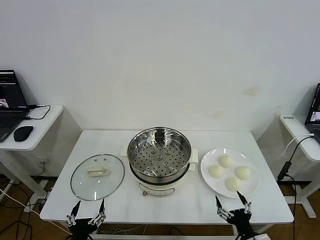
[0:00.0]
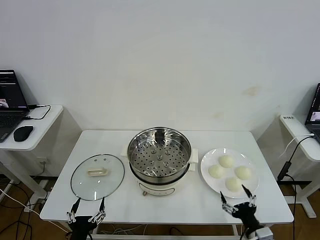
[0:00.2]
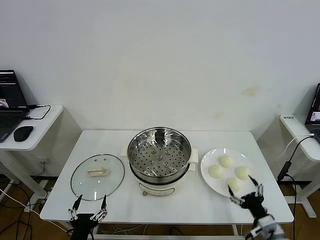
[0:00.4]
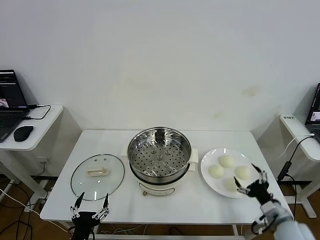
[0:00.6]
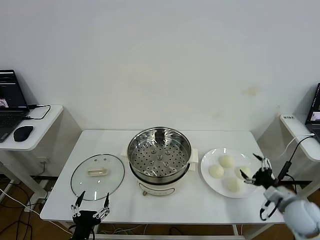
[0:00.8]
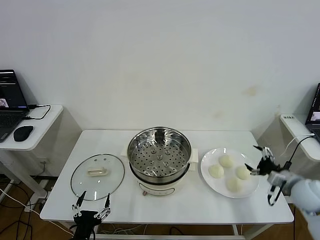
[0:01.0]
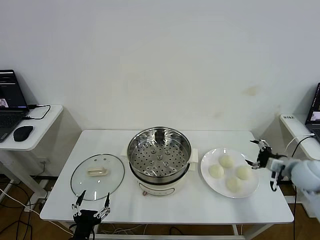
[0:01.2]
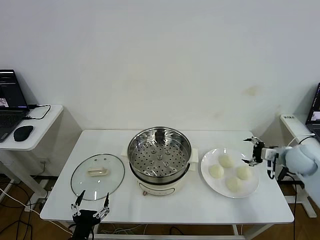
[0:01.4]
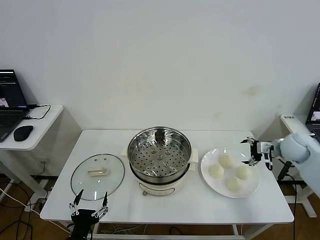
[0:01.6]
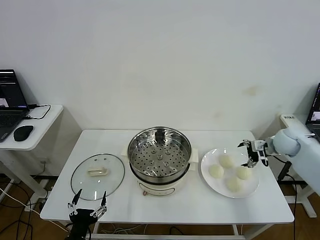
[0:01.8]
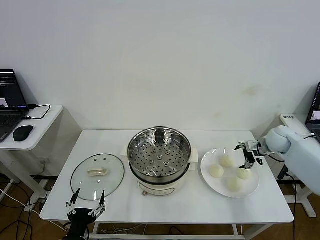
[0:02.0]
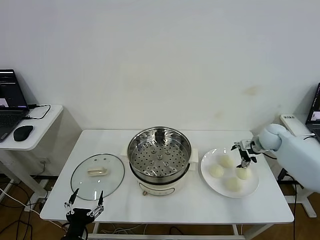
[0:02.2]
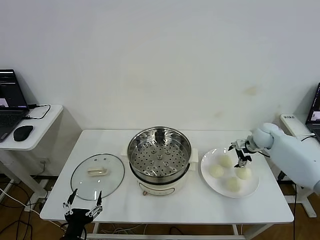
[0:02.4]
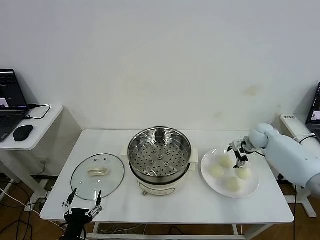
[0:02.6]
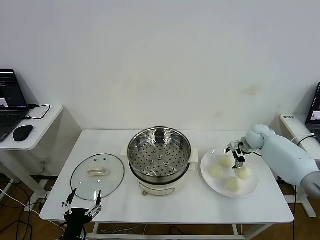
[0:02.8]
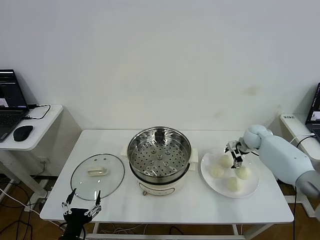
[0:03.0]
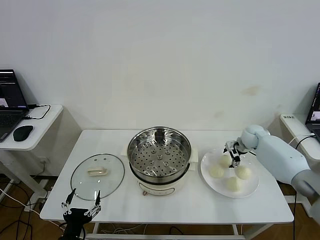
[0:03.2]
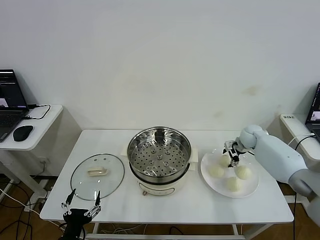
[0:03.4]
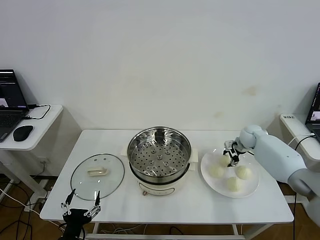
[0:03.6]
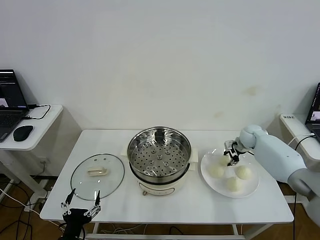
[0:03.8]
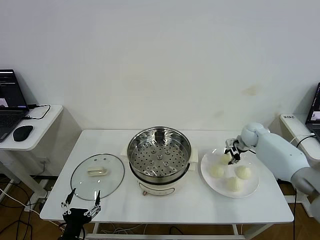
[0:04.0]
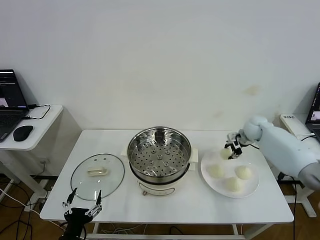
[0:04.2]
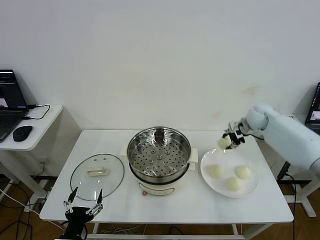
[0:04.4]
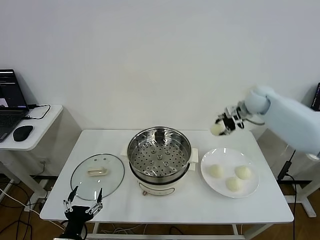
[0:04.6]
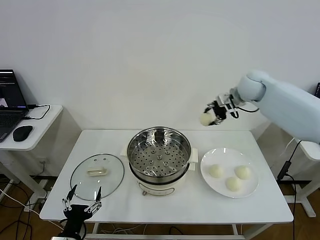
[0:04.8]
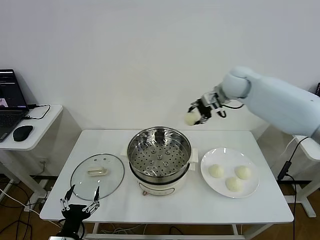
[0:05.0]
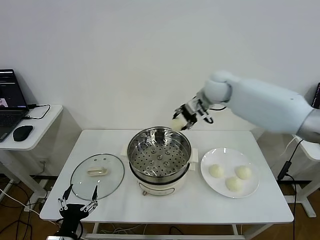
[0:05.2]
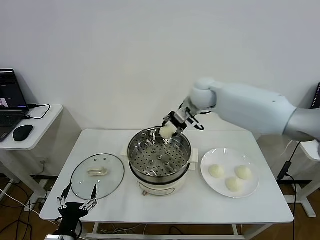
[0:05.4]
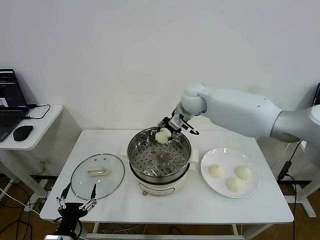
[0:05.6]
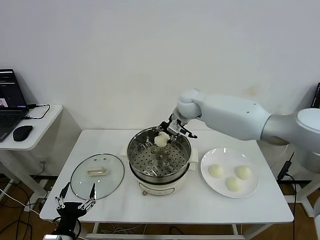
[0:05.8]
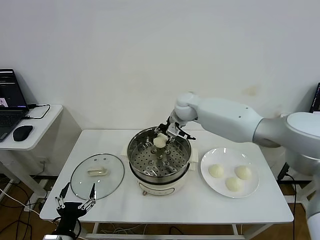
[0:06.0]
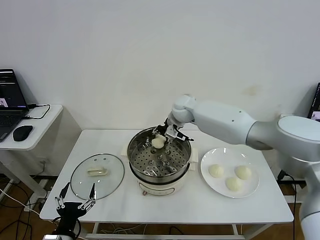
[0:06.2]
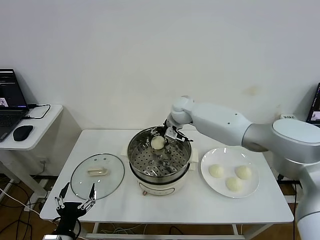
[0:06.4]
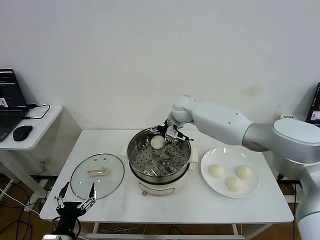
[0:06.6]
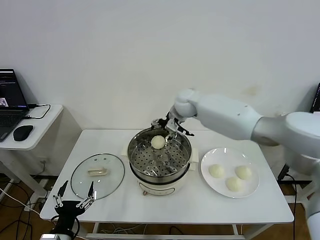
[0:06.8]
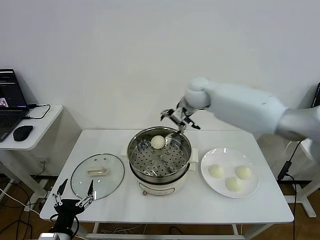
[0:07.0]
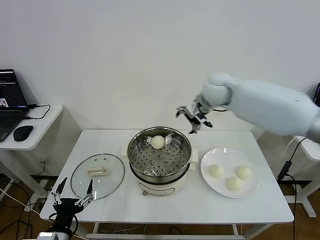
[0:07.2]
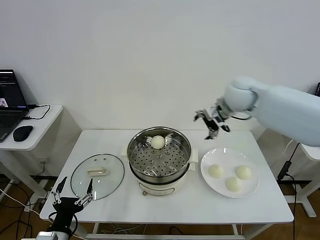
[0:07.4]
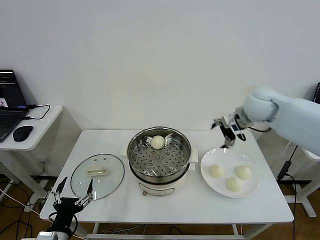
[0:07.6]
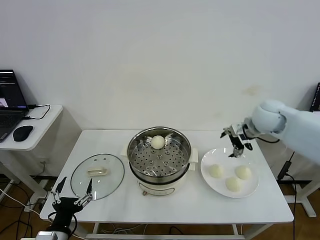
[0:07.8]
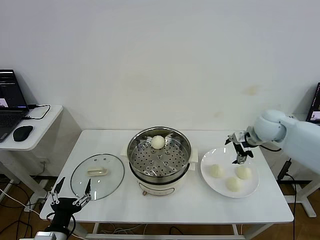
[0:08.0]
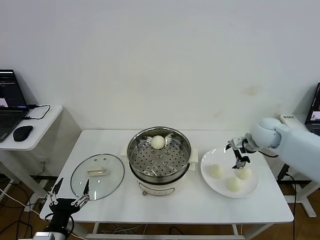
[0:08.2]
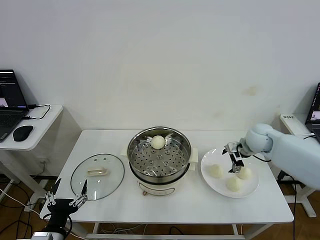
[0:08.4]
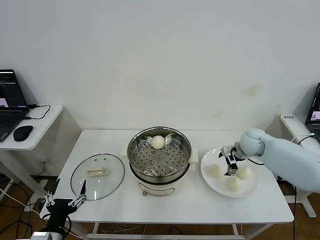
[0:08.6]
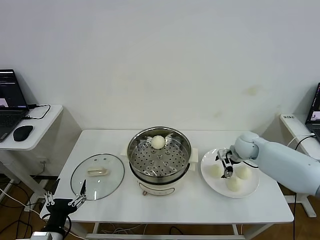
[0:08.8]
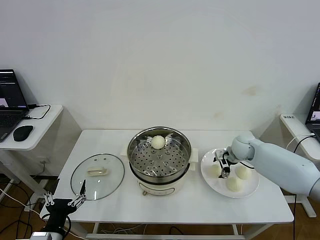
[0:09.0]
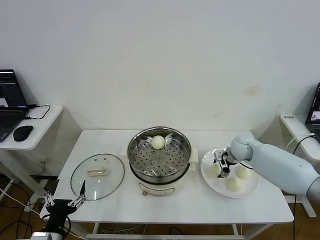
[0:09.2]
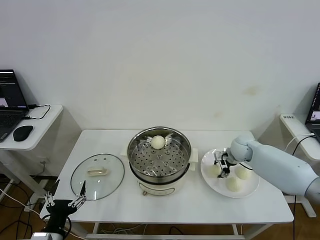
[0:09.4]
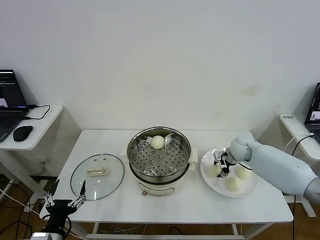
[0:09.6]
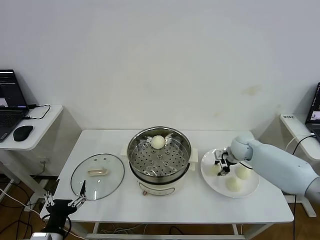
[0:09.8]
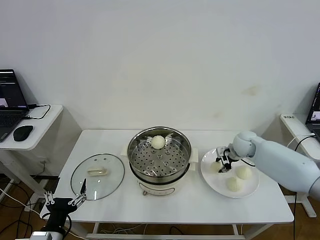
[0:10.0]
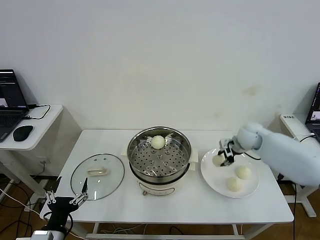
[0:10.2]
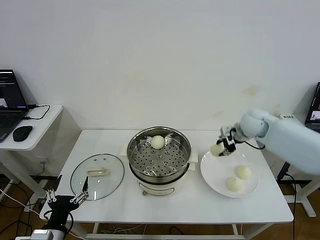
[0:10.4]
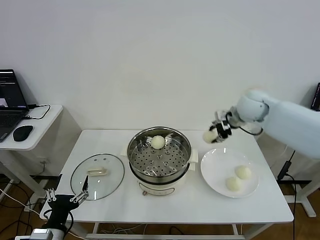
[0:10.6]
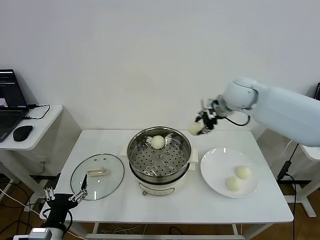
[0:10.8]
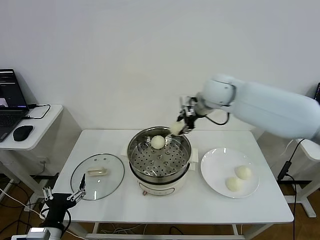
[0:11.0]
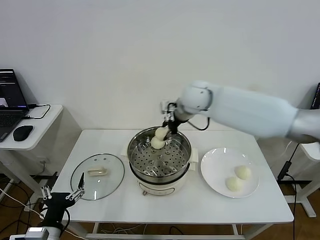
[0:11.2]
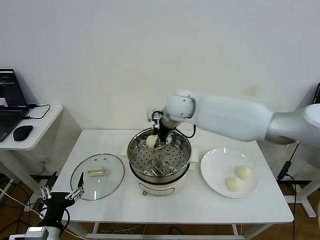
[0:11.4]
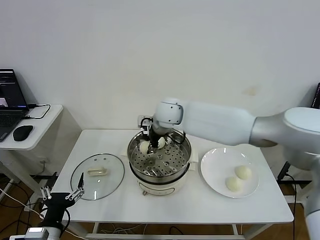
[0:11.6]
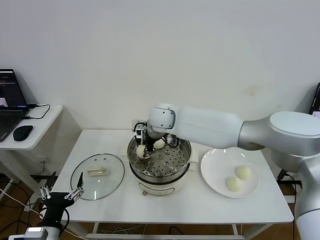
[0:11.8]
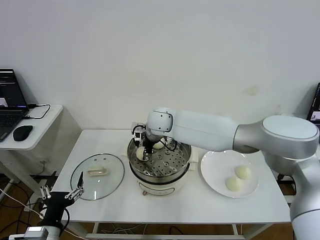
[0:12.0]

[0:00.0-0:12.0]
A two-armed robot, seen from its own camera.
Step, 0:00.0 to 0:03.6: Grasp the baozi in the plate with right gripper.
Step, 0:03.8 to 0:06.4: Place the baozi on the steamer with right gripper.
Step, 0:06.6 to 0:09.2: Grasp the baozi in the plate with right gripper.
0:01.6 to 0:03.0: The right gripper moves forward, downward and to the left, approximately 15 cm.
0:03.0 to 0:04.4: The right gripper travels upward by some 15 cm, and closes.
0:04.4 to 0:06.0: The right gripper goes about 25 cm to the left.
0:06.0 to 0:07.6: The right gripper travels to the right by roughly 25 cm, and opens.
0:07.6 to 0:09.0: The right gripper shifts about 20 cm downward.
0:09.0 to 0:10.4: The right gripper shifts about 15 cm upward, and closes its fingers.
0:10.4 to 0:12.0: The right gripper heads to the left, covering about 30 cm, and opens.

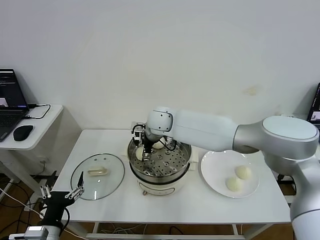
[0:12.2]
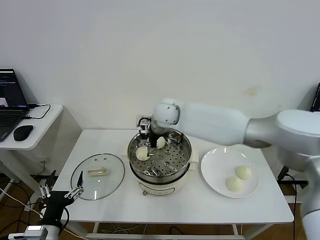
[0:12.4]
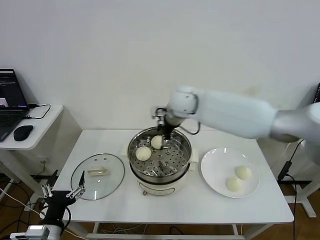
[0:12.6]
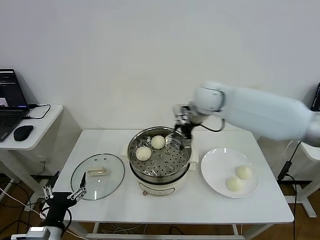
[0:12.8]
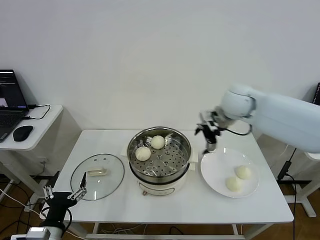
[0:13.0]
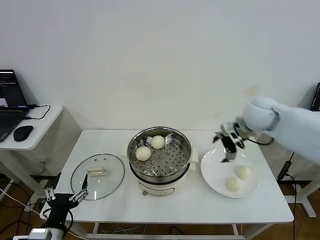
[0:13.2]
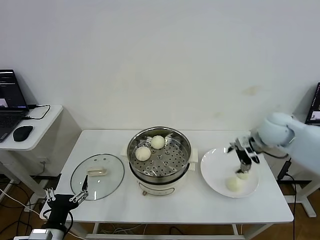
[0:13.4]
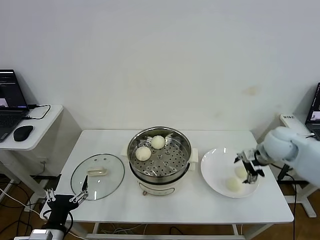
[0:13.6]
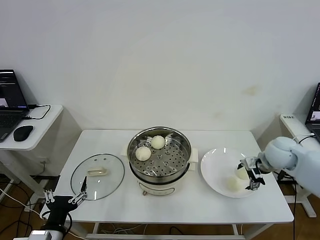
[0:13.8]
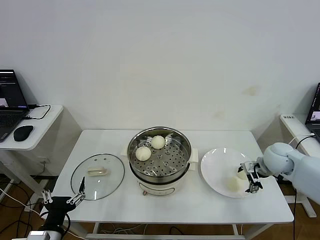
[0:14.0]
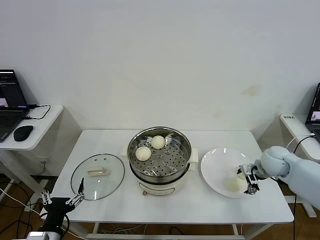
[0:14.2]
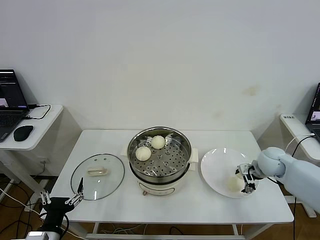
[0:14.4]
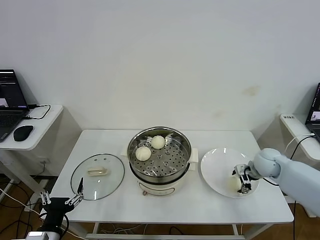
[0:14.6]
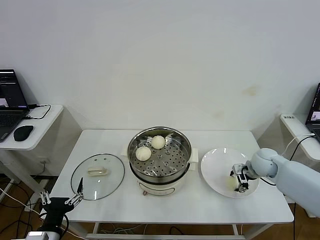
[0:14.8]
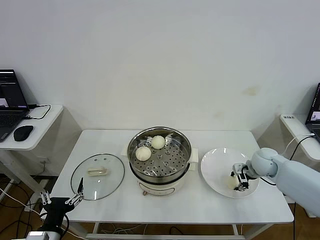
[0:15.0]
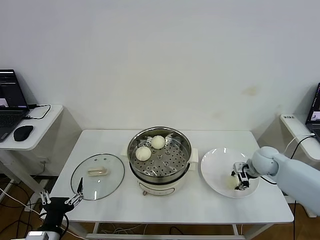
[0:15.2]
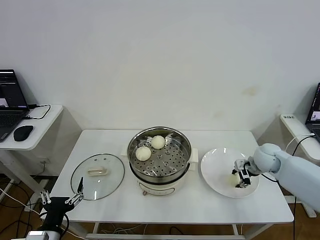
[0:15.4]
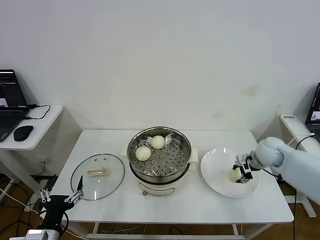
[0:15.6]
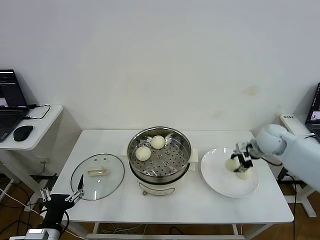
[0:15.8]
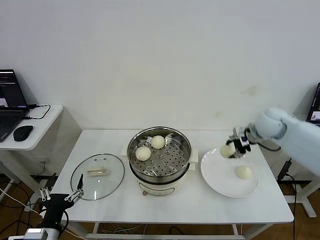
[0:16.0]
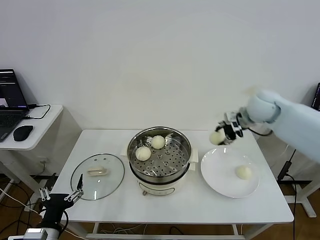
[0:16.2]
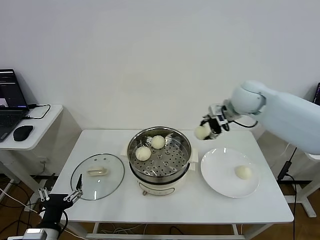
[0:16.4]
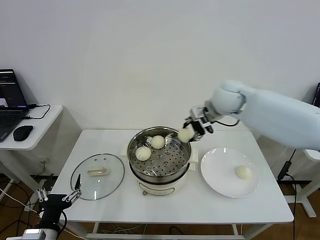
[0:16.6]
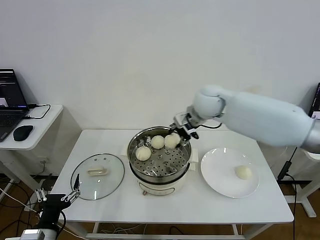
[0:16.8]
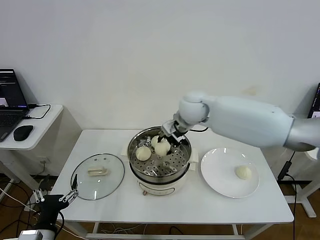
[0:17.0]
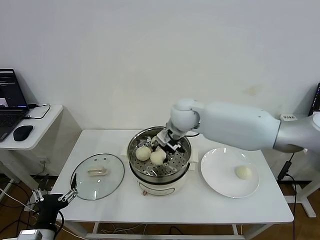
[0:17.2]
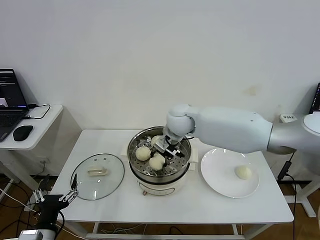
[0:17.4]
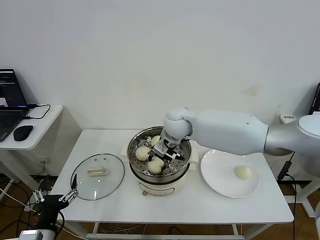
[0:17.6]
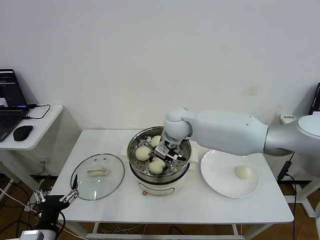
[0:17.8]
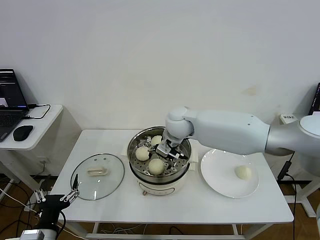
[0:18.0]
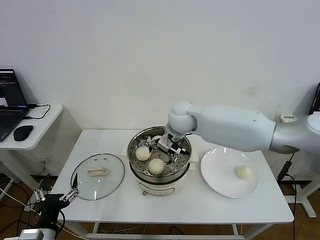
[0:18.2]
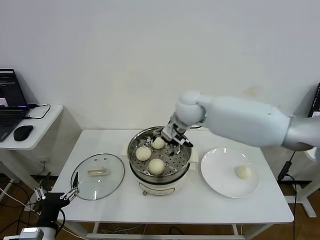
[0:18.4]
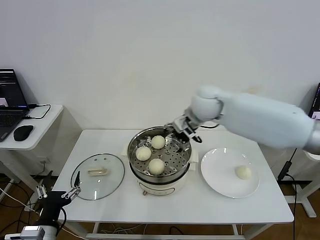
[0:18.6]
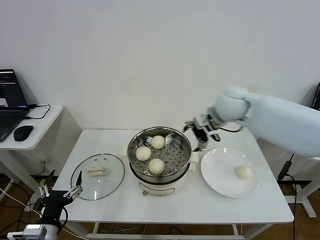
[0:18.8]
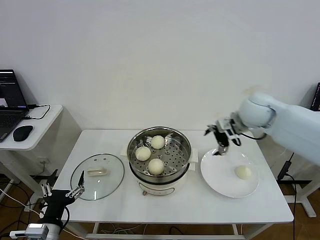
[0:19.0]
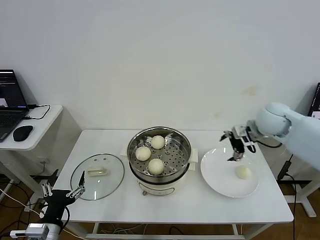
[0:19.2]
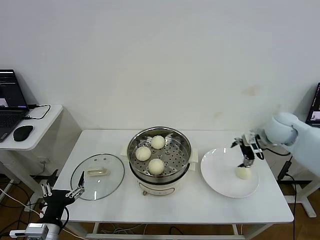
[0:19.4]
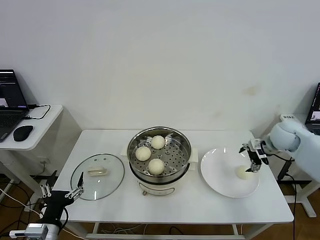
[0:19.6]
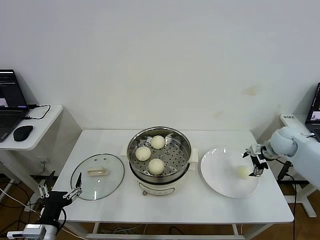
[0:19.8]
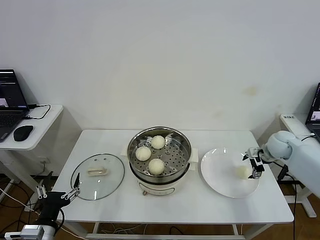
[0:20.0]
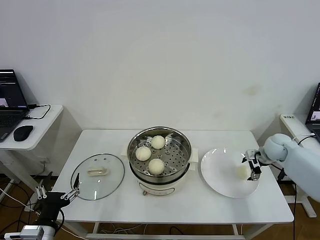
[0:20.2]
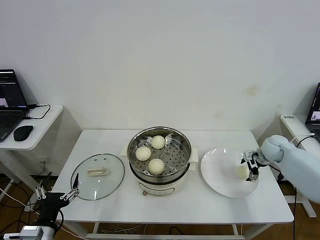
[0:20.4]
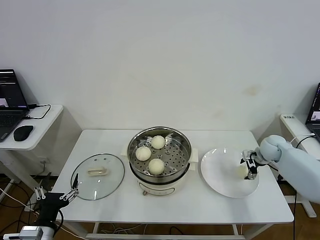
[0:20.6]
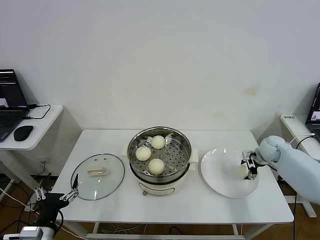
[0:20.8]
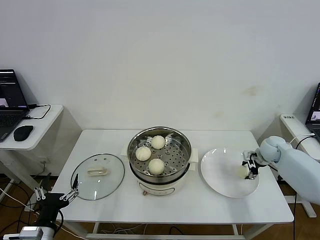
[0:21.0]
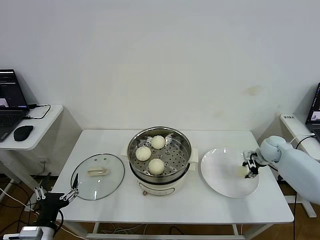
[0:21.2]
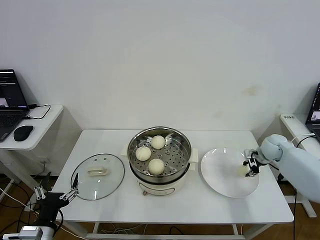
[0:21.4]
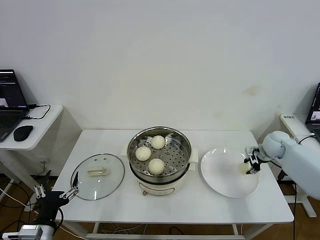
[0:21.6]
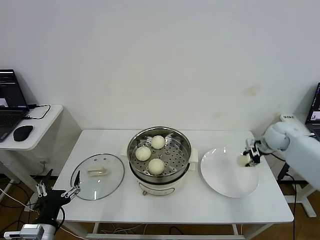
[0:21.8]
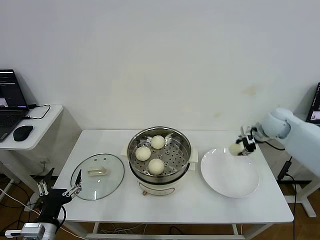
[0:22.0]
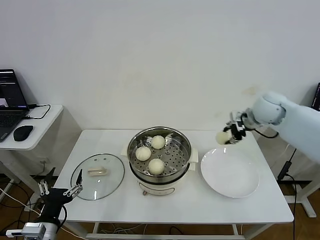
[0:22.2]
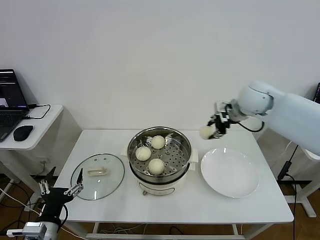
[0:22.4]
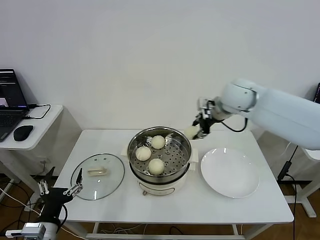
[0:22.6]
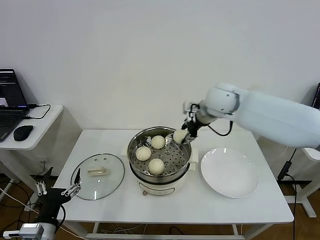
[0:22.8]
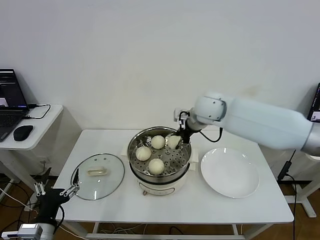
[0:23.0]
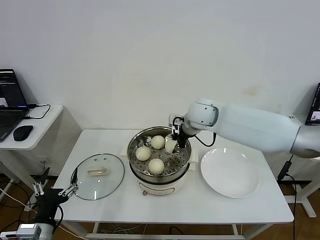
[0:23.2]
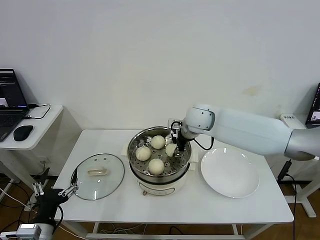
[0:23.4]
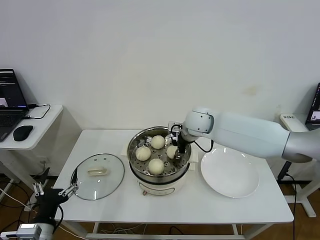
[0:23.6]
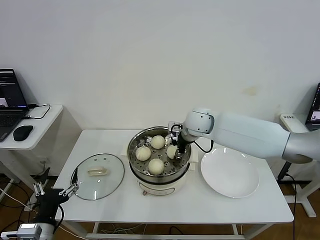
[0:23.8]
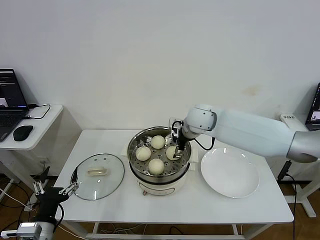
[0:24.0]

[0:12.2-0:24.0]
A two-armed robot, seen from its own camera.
Step, 0:12.4 to 0:14.8: Grasp the baozi in the plate with right gripper.
Step, 0:15.0 to 0:18.0: Place the baozi on the steamer with right gripper.
Step, 0:18.2 to 0:21.0: Grasp the baozi in the plate with right gripper.
Step, 0:21.2 to 0:24.0: Place the baozi on the steamer with right gripper.
0:12.2 to 0:13.6: The right gripper goes approximately 40 cm to the right.
0:13.6 to 0:15.2: The right gripper is displaced downward by roughly 10 cm, and closes its fingers.
0:15.2 to 0:16.6: The right gripper goes approximately 30 cm upward and to the left.
0:16.6 to 0:18.2: The right gripper goes roughly 15 cm to the left and downward, and opens.
0:18.2 to 0:19.6: The right gripper heads to the right, covering approximately 35 cm.
0:19.6 to 0:21.0: The right gripper moves downward, about 10 cm, and closes.
0:21.0 to 0:22.6: The right gripper goes about 30 cm upward and to the left, and closes its fingers.
0:22.6 to 0:24.0: The right gripper travels downward and to the left by about 10 cm, and opens.
